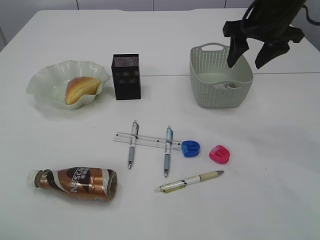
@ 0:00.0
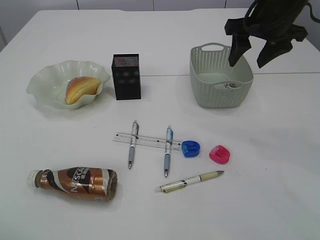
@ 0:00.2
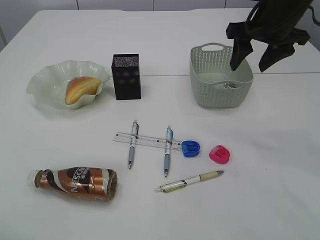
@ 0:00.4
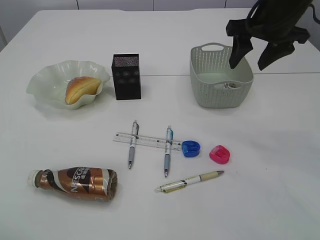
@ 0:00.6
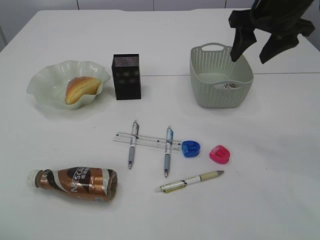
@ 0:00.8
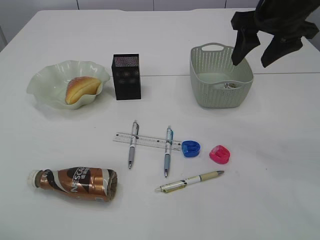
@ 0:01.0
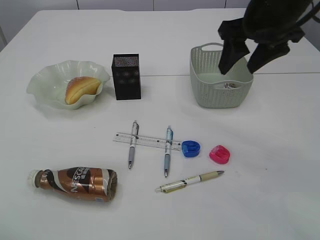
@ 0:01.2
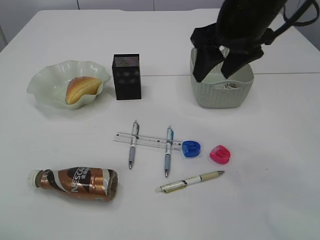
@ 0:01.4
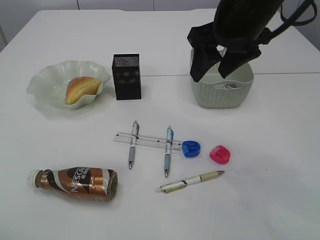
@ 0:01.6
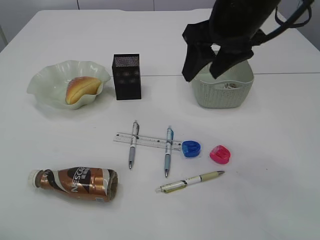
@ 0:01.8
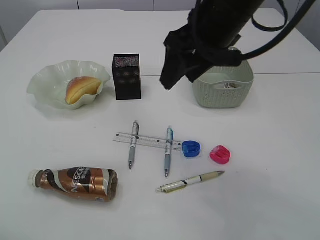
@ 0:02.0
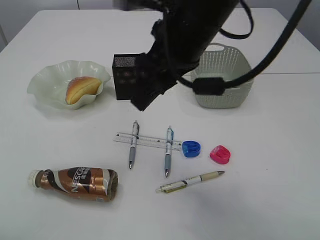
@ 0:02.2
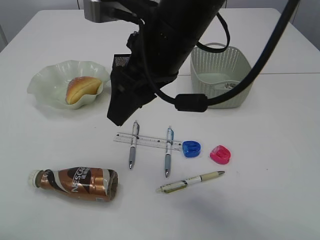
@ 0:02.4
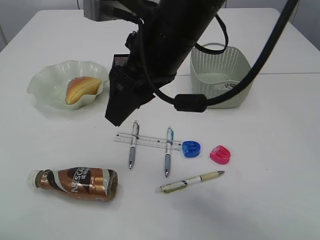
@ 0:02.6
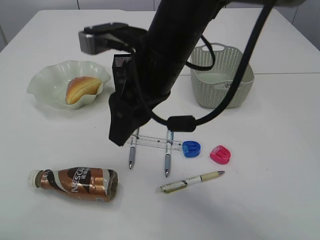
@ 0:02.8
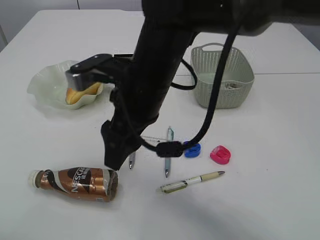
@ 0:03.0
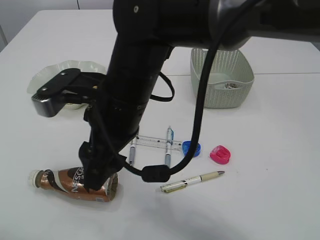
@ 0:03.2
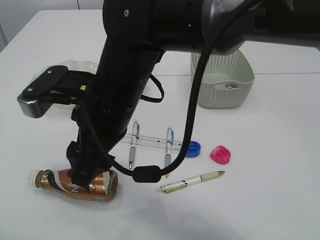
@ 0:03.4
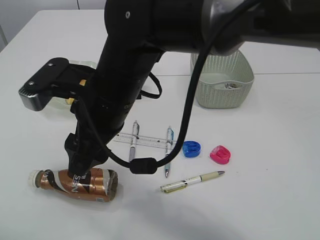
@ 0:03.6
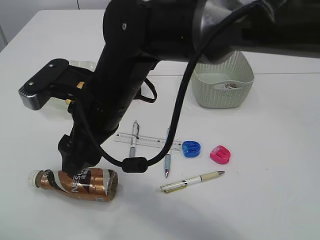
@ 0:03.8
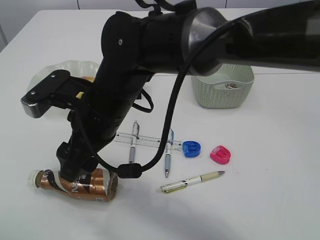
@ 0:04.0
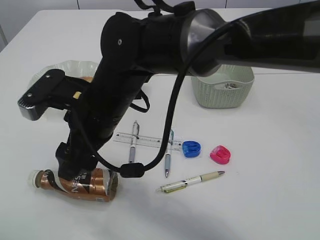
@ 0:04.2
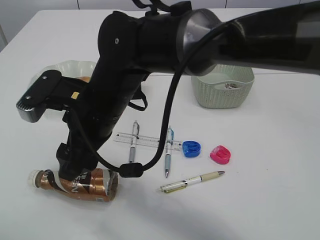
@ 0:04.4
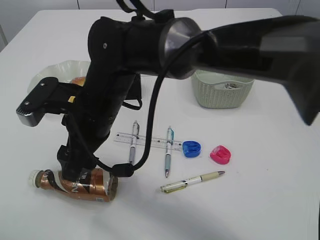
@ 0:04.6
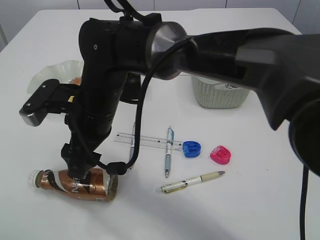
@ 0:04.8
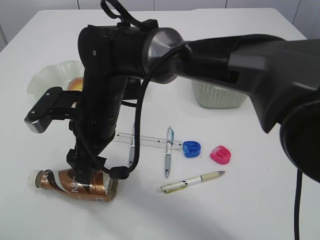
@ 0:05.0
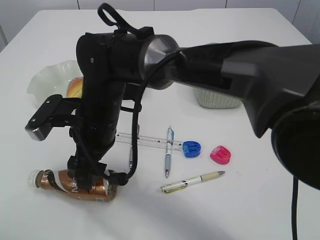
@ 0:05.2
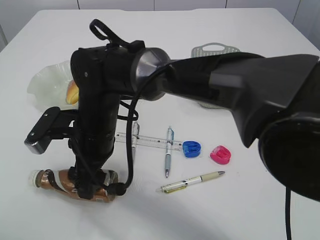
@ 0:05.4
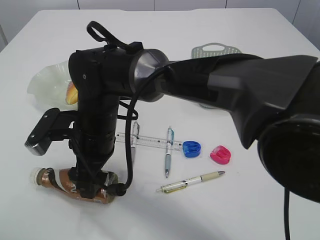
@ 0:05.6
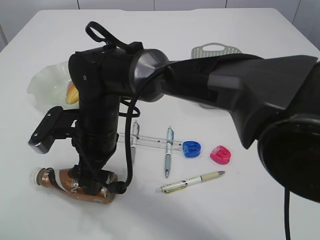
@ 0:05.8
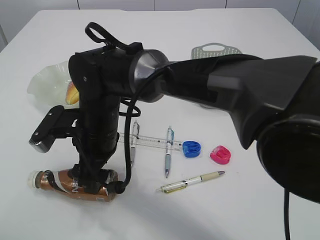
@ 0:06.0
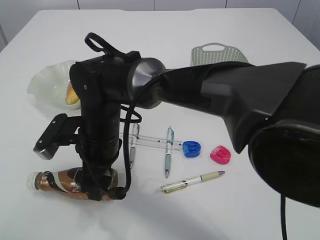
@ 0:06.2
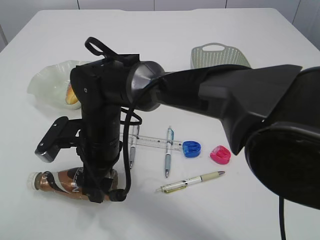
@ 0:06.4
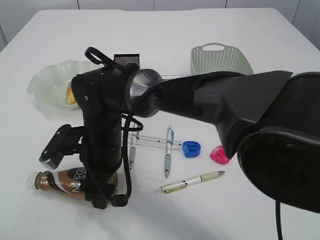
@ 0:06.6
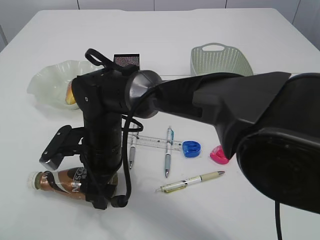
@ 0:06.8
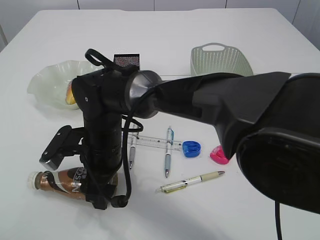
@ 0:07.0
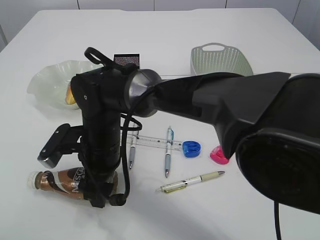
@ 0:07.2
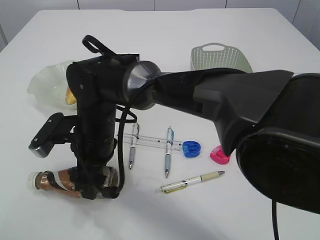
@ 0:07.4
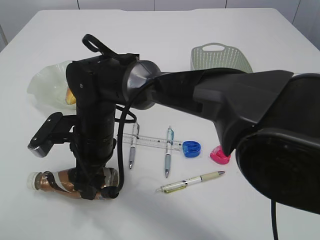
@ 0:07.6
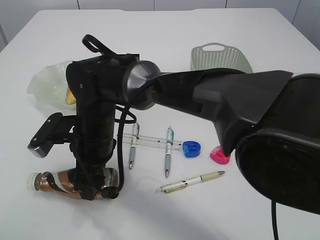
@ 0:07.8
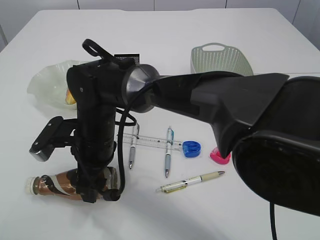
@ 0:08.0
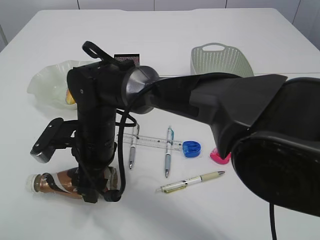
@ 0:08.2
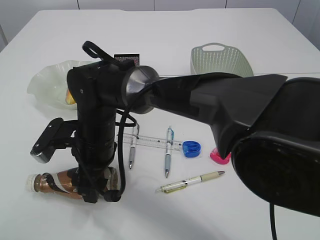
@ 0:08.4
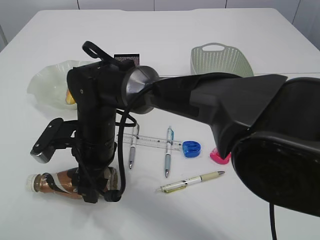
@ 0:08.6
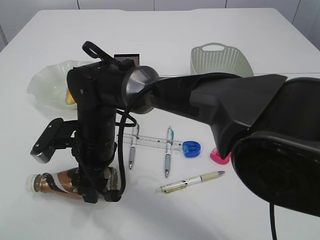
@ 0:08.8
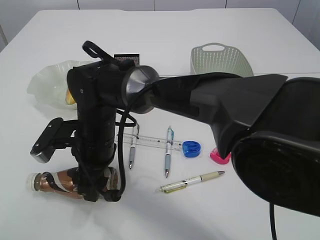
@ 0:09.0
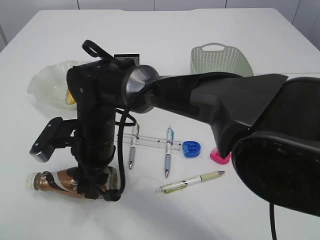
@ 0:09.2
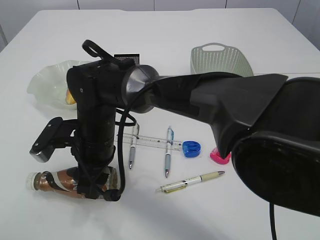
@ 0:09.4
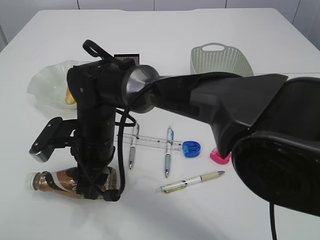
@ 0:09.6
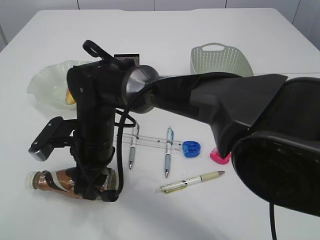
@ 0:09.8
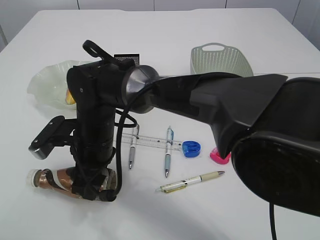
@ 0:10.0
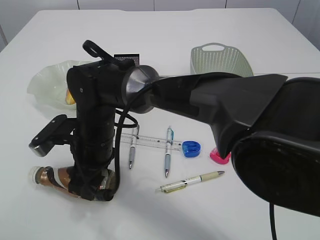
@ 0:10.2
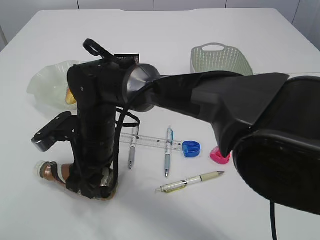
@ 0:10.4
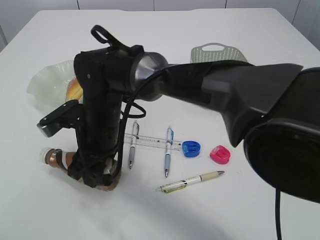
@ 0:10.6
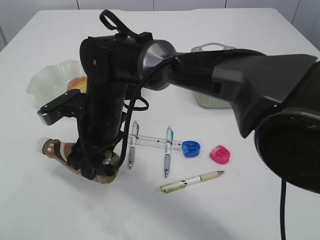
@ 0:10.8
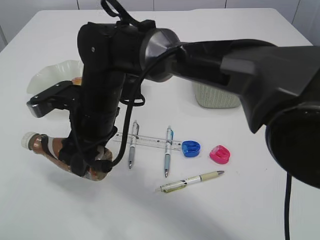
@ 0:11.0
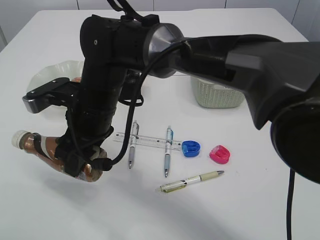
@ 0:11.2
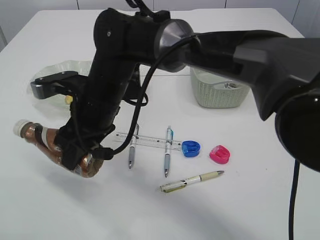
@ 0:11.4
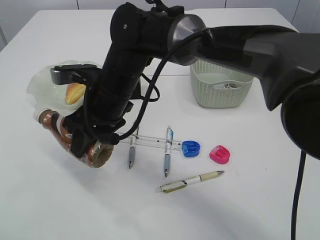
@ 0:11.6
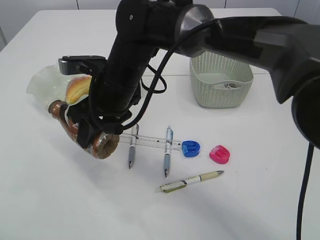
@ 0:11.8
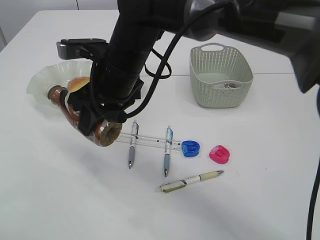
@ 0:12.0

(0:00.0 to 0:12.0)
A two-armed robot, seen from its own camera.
Step, 0:00.0 - 0:11.8: Pick up the bottle with the right arm.
0:00.0 - 0:01.6: The right gripper moves to the left and backward, about 10 cm.
0:01.6 - 0:03.0: The right gripper shifts some 15 cm to the left and downward.
0:03.0 - 0:04.4: The right gripper is displaced to the left by some 5 cm.
0:04.4 - 0:06.0: The right gripper travels downward by some 5 cm.
0:06.0 - 0:07.6: The grippers make only small movements.
0:07.6 - 0:09.0: The two grippers keep their place.
0:09.0 - 0:10.4: There are only small adjustments of the grippers.
0:10.4 - 0:12.0: The right gripper goes roughly 10 cm upward and to the right.

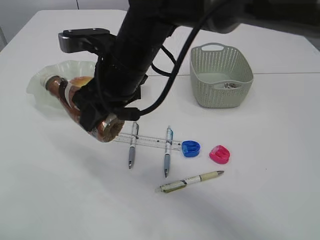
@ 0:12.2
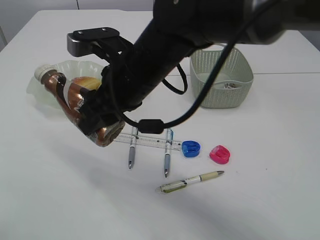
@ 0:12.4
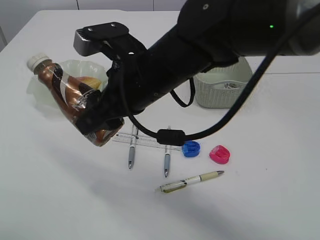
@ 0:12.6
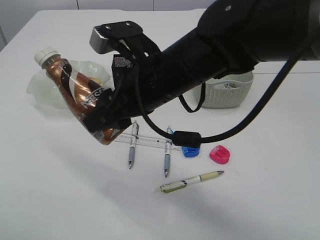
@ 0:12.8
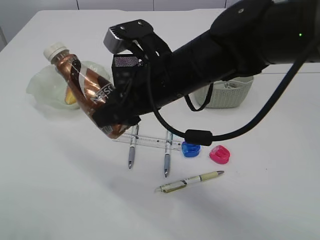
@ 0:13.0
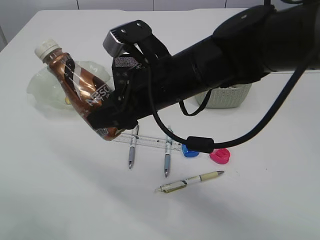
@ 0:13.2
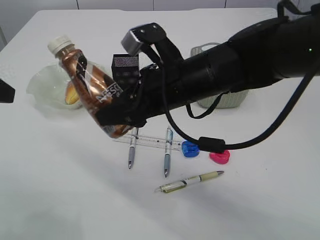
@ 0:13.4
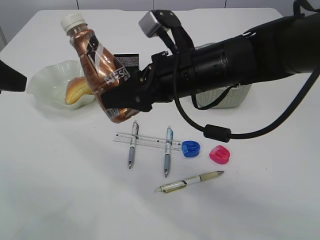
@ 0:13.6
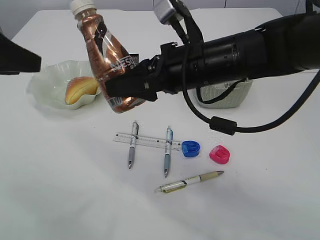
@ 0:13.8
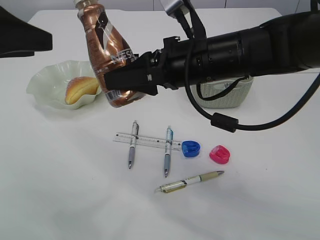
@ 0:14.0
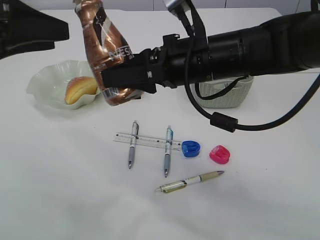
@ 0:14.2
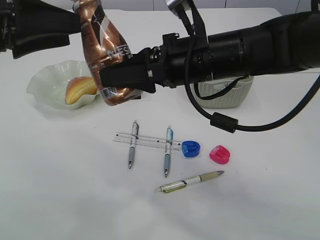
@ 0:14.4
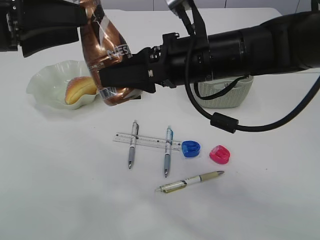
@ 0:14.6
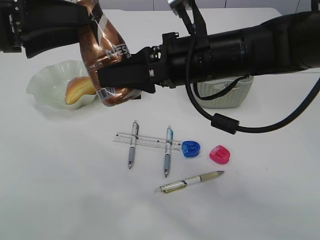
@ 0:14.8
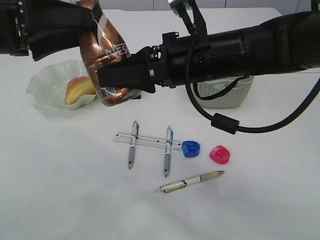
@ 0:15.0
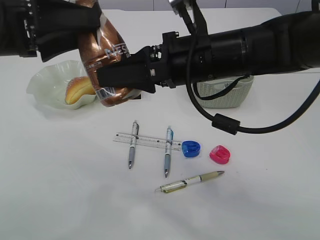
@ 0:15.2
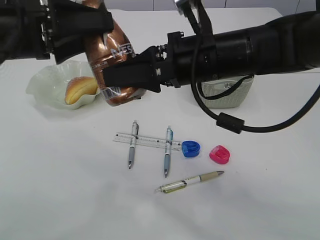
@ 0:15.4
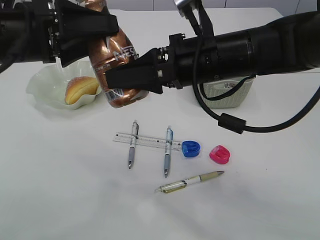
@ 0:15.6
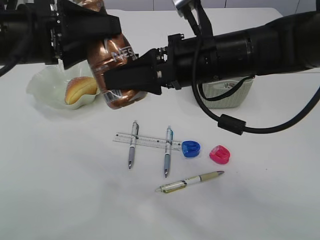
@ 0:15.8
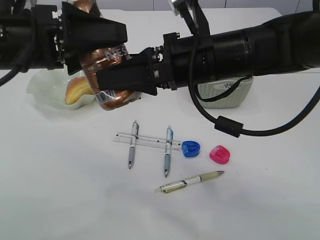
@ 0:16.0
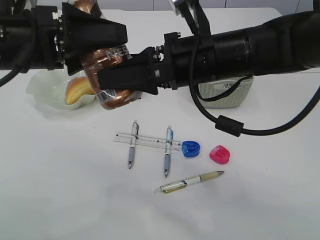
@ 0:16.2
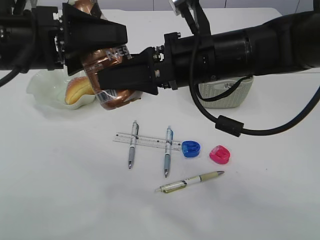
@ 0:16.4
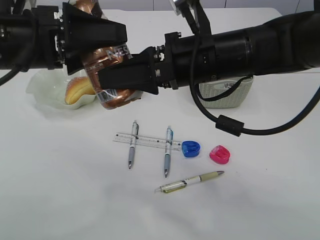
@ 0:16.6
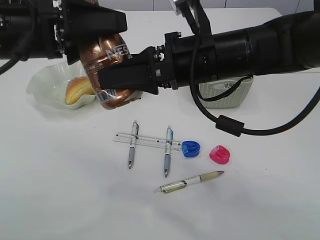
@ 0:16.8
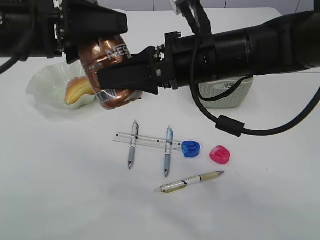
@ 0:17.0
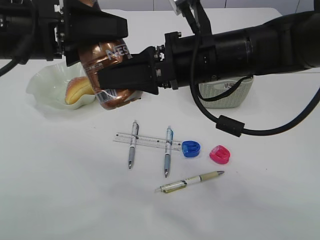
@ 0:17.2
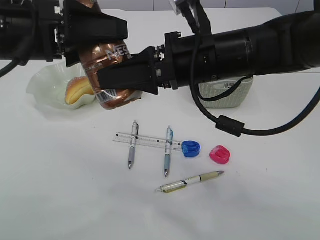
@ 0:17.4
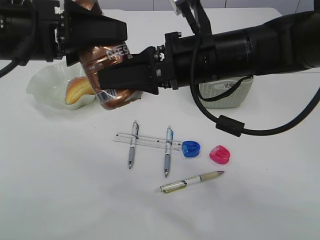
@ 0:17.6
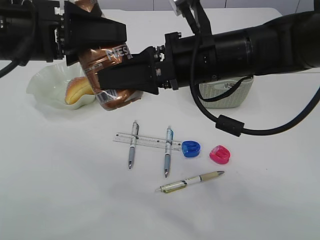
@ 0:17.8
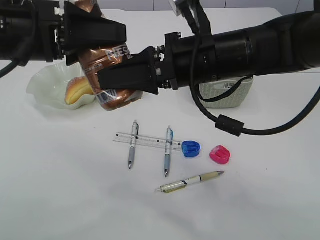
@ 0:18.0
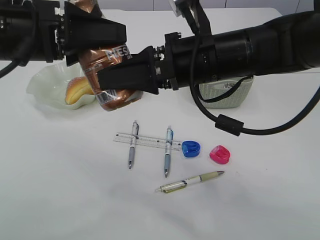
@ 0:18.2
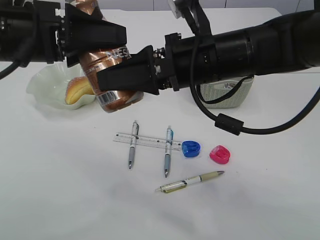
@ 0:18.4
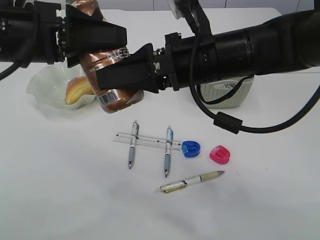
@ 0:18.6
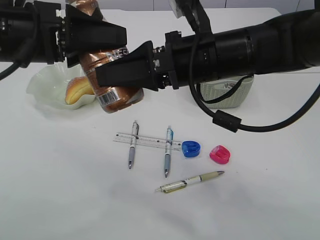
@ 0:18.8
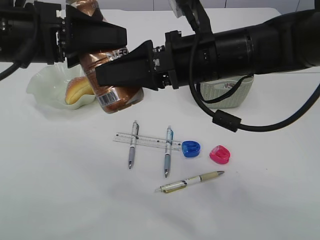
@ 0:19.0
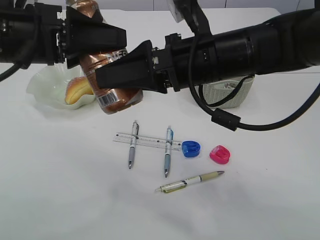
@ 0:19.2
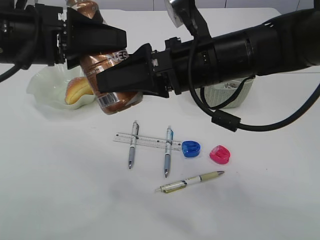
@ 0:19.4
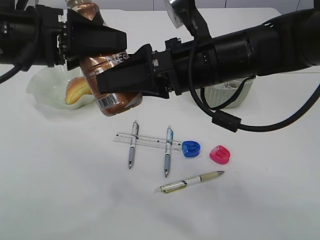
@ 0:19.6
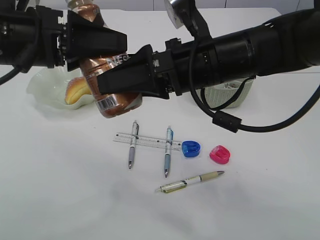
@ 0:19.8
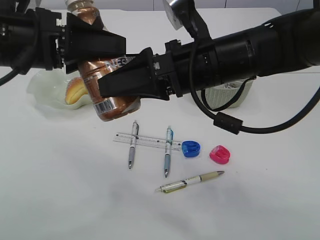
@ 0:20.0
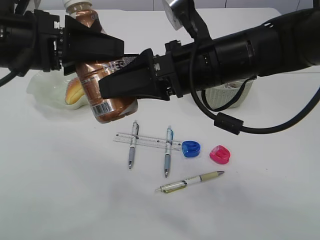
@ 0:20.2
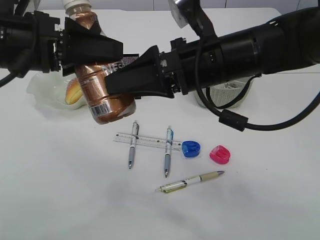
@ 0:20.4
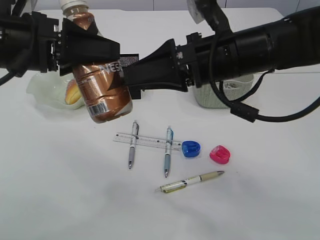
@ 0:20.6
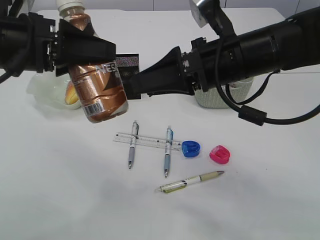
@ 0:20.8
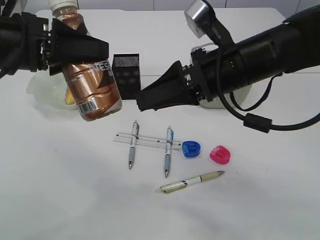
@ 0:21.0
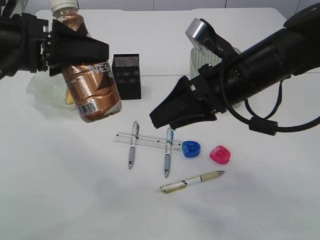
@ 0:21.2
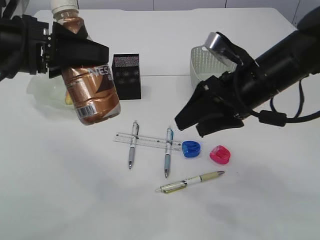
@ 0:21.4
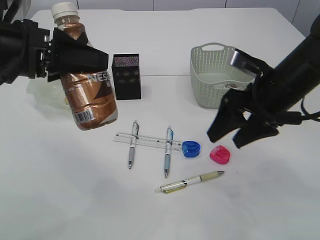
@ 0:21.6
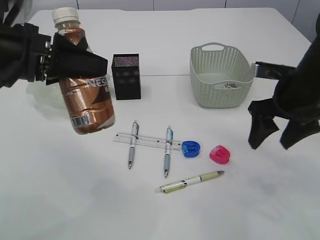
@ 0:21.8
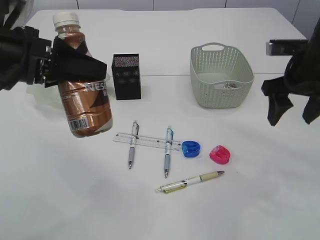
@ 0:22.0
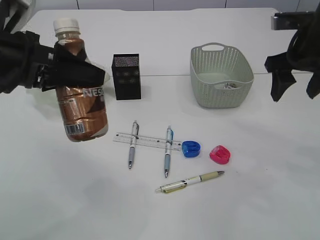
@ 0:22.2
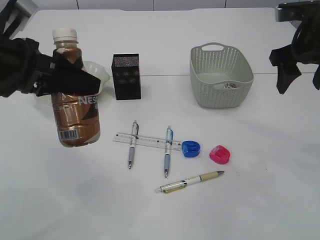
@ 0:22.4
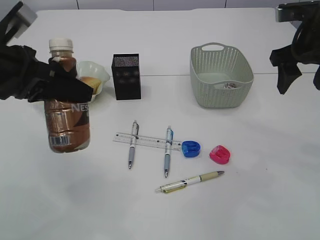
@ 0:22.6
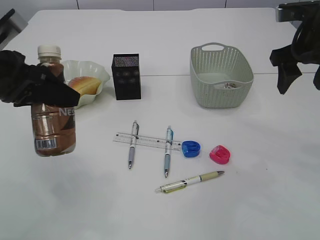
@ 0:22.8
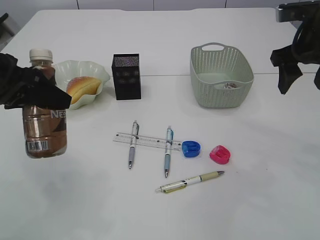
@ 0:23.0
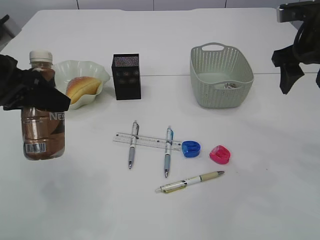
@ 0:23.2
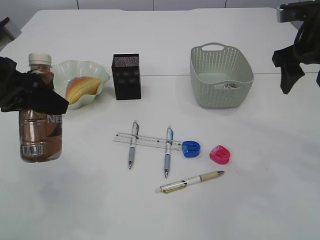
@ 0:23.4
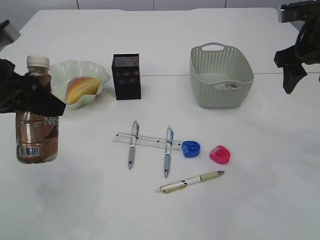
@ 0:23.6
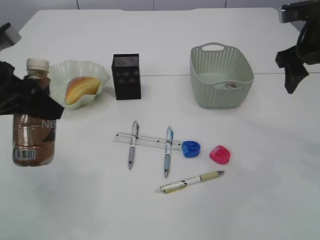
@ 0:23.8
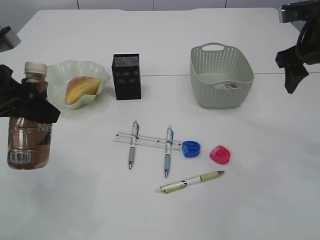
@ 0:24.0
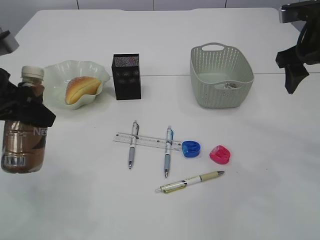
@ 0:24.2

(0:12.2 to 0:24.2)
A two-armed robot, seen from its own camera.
Step, 0:12.2 - 0:21.2: transfer the bottle to the left arm.
0:12.2 - 0:13.8: The left gripper moves forward, about 5 cm. Meanwhile the right gripper heads to the right, covering about 10 cm.
0:13.8 - 0:15.2: The left gripper shifts by about 5 cm.
0:15.2 - 0:16.6: The grippers move only a little.
0:16.6 - 0:18.2: The left gripper closes up.
0:18.2 - 0:19.8: There are only small adjustments of the grippers.
0:19.8 - 0:21.2: The right gripper shifts by approximately 5 cm.
0:21.2 - 0:22.6: The right gripper is displaced to the right by approximately 15 cm.
0:22.6 - 0:24.2: There are only small adjustments of the grippers.
